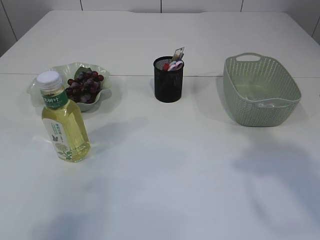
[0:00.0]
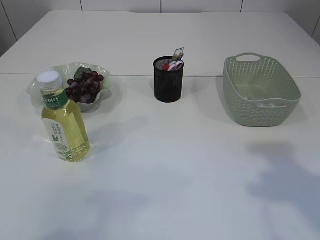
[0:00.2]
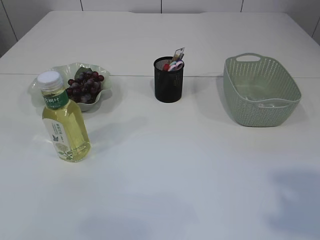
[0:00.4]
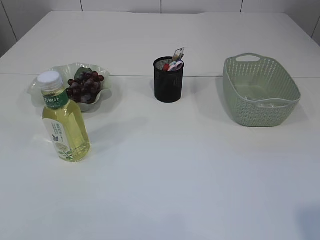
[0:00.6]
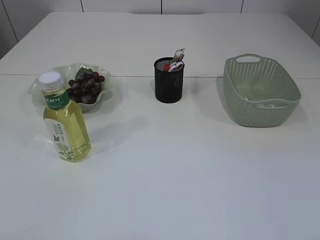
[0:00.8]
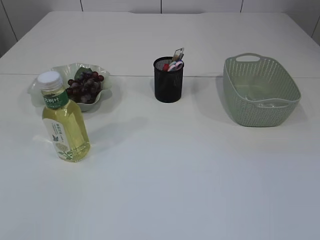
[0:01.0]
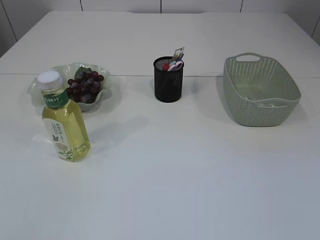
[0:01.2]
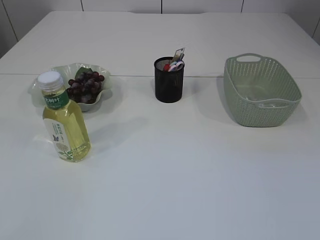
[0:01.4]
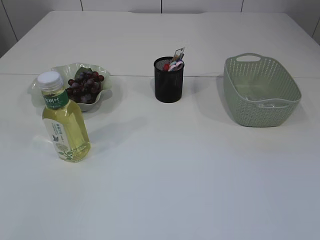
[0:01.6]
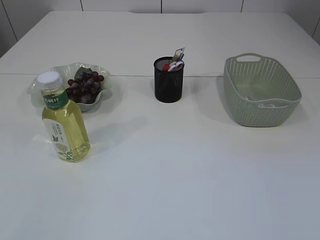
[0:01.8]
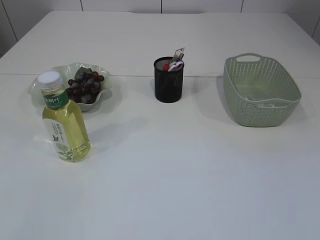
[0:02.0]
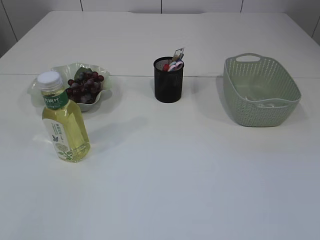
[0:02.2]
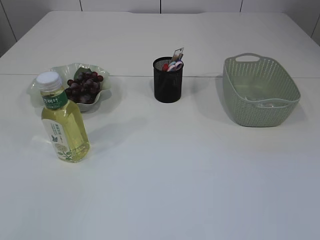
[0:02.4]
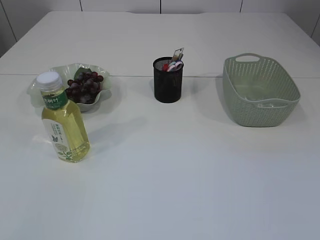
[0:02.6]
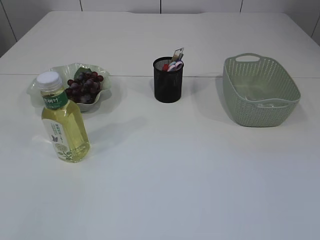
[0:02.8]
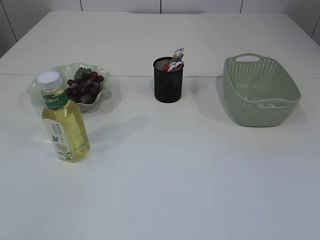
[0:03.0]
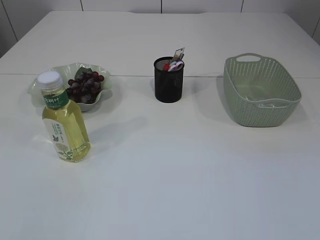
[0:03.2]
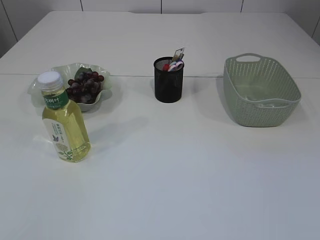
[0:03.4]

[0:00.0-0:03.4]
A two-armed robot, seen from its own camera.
0:00.0 to 0:01.6: The left gripper goes some 15 cm backward.

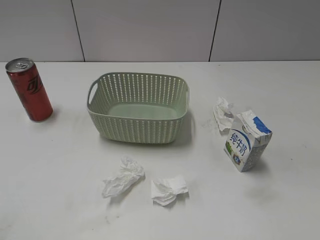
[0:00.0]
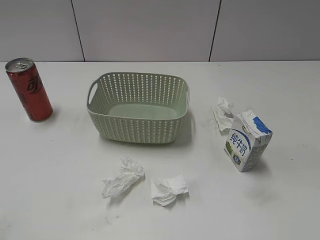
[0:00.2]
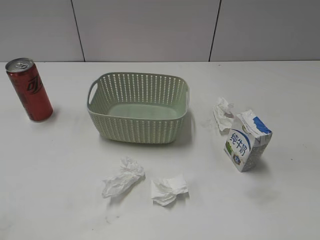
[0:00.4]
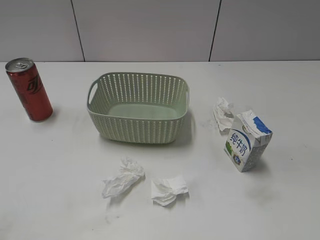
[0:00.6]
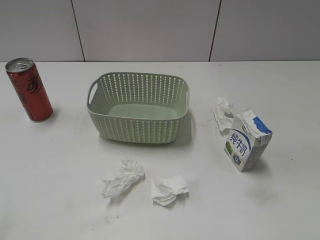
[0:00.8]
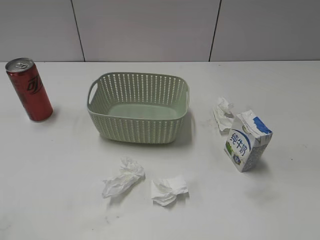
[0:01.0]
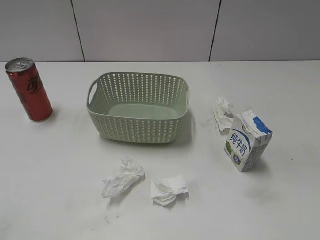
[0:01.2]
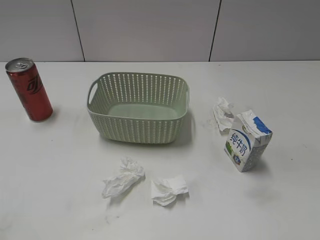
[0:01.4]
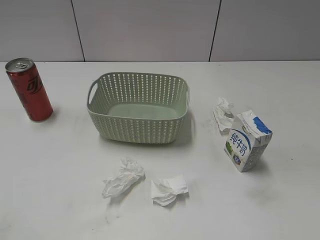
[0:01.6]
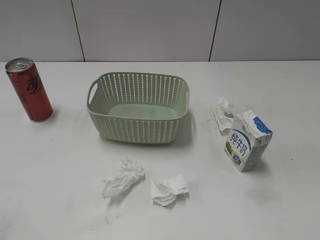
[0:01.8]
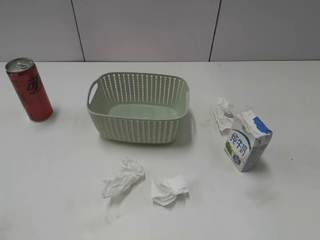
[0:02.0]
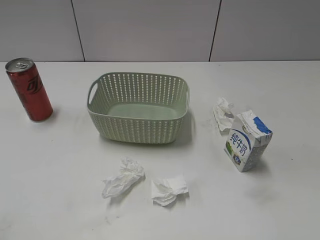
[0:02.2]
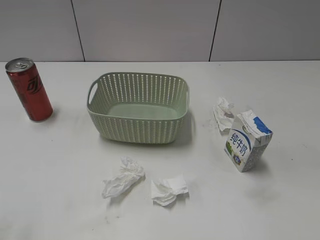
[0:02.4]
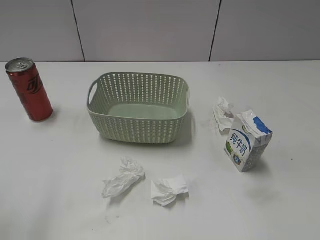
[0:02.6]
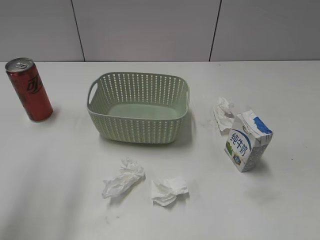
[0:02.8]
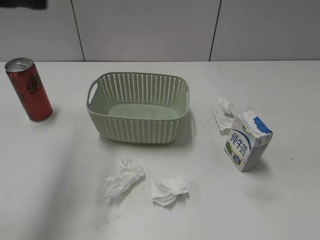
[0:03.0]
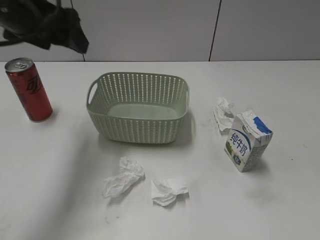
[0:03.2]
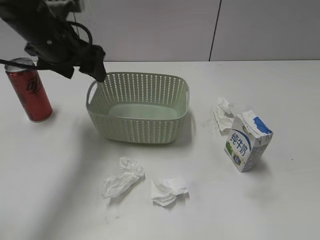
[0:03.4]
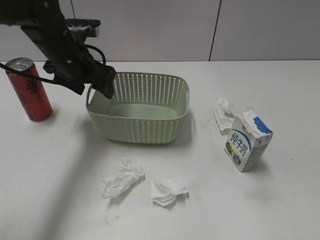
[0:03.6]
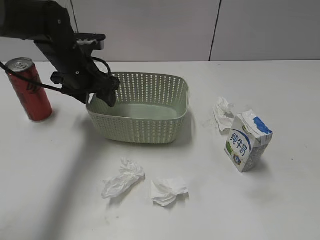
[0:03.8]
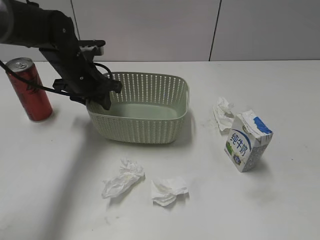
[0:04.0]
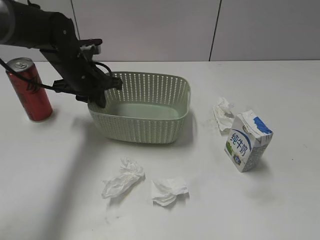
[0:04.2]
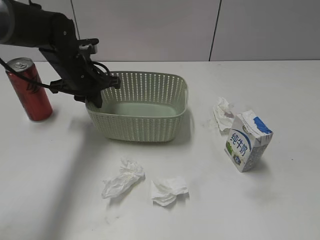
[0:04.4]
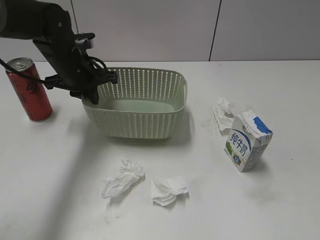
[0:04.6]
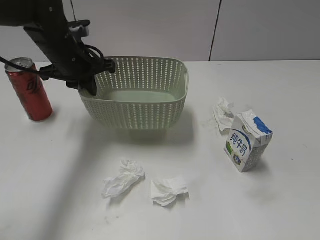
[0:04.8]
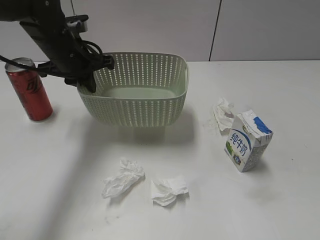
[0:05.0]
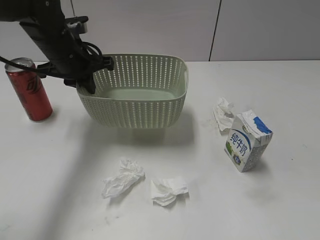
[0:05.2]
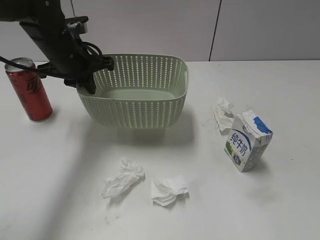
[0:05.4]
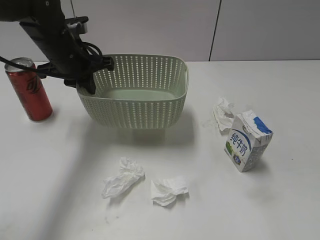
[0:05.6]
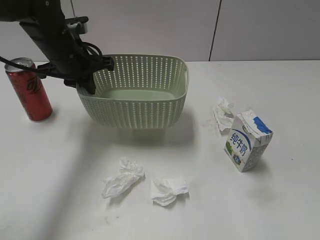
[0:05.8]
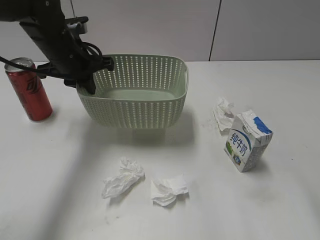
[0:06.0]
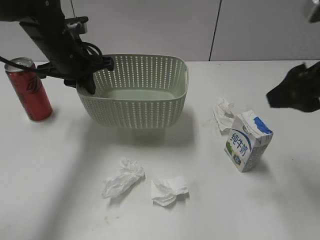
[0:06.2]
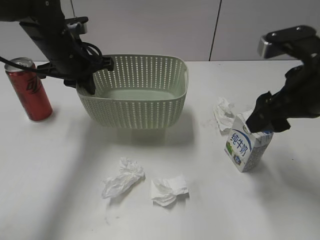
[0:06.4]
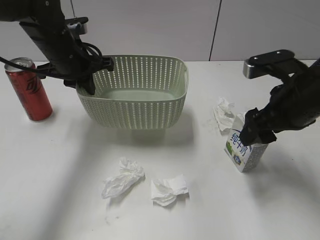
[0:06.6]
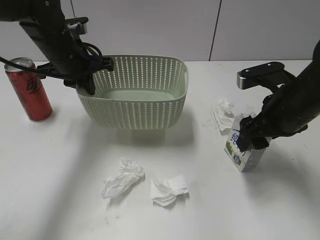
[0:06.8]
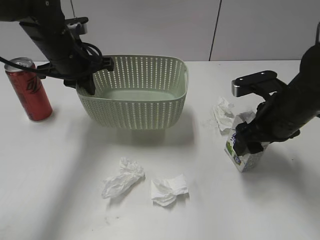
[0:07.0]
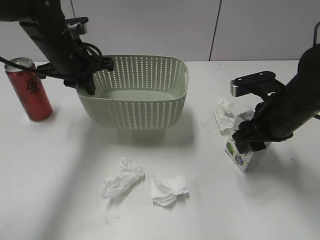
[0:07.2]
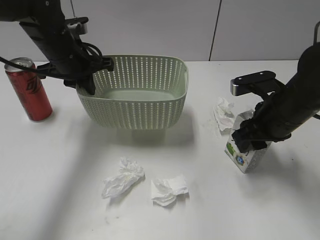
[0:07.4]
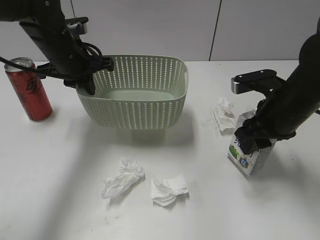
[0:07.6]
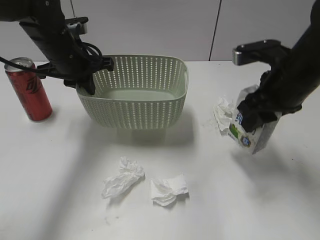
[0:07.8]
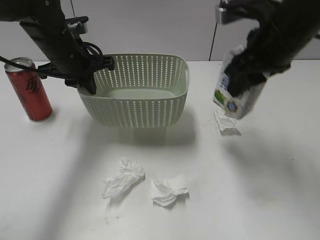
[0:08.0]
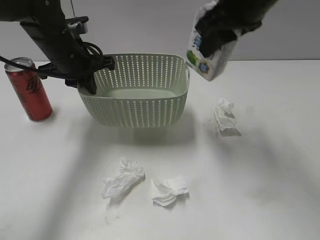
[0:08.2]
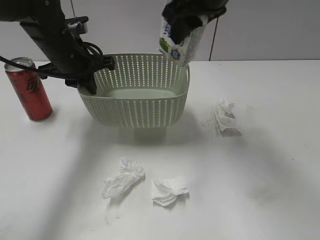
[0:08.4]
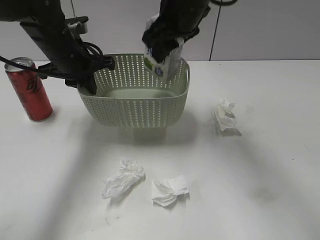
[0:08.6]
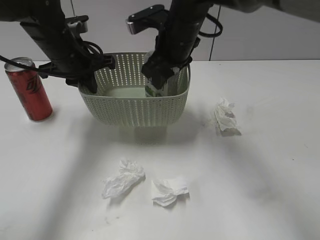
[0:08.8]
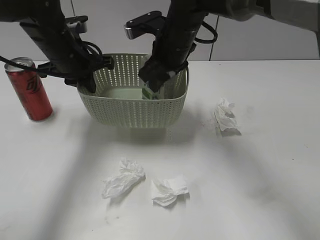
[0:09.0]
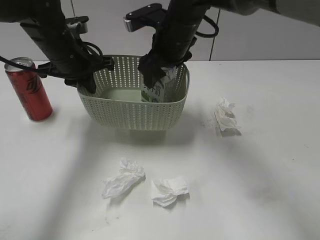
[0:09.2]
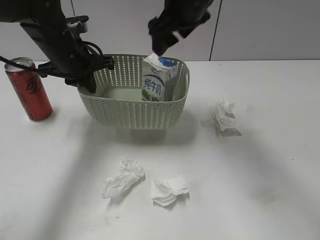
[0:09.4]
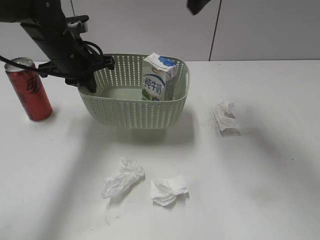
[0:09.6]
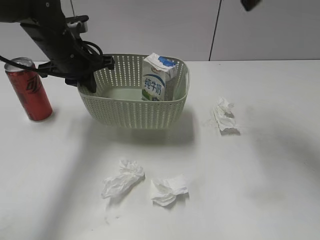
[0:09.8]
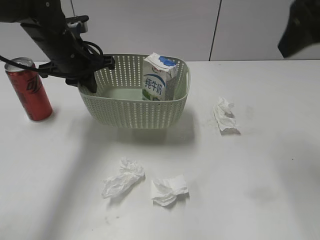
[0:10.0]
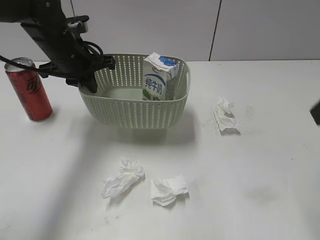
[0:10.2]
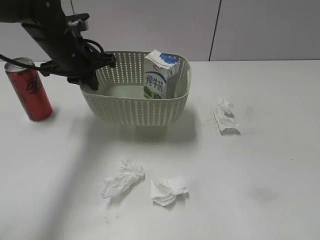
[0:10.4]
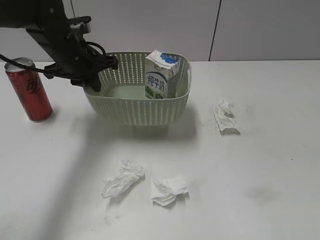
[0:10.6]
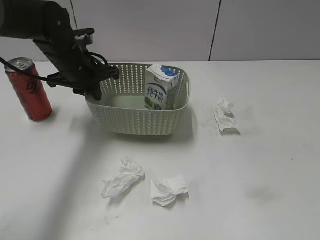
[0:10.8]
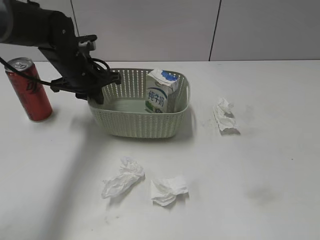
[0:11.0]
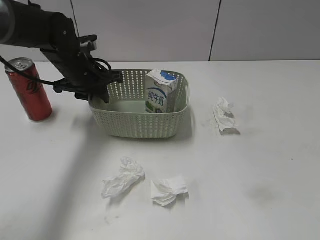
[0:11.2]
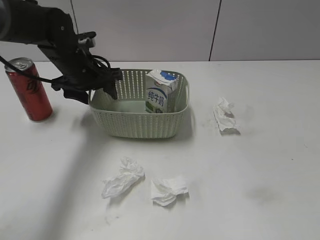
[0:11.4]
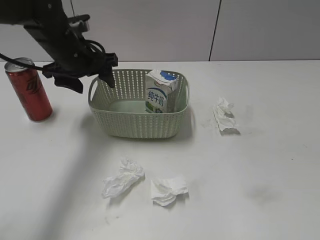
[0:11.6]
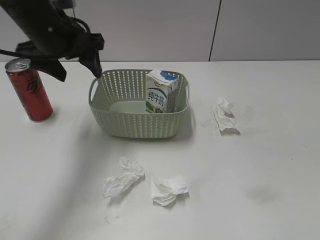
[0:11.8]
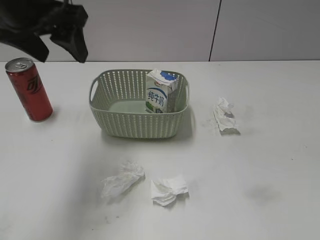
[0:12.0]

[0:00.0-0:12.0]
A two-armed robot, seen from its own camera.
Step, 0:03.0 to 0:04.2: Grasp the basket with left gripper.
Step, 0:04.4 to 0:05.0: Lift the basket with left gripper.
Step, 0:05.2 to 0:07.2: Grasp the milk with right gripper.
Step, 0:07.4 to 0:09.4: Place the milk in the basket with right gripper.
0:01.6 to 0:03.0: The left gripper is displaced forward and upward by approximately 25 cm, and opens up.
0:03.0 to 0:04.4: The left gripper travels downward, forward and to the right by approximately 30 cm, and closes.
0:04.4 to 0:06.0: The left gripper is displaced upward by approximately 5 cm. Meanwhile the right gripper heads forward and upward, covering some 15 cm.
0:06.0 to 0:07.6: The right gripper travels downward, forward and to the left by roughly 25 cm, and closes.
0:07.6 to 0:09.0: The right gripper travels to the left and forward by about 20 cm.
0:09.0 to 0:10.4: The right gripper heads backward, to the right and upward, covering about 35 cm, and opens up.
0:10.4 to 0:12.0: The right gripper goes about 15 cm backward and downward; the left gripper shifts approximately 10 cm upward and backward, and opens up.

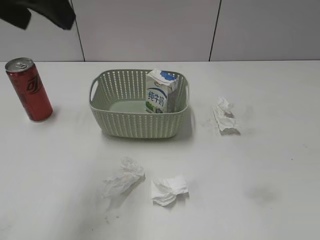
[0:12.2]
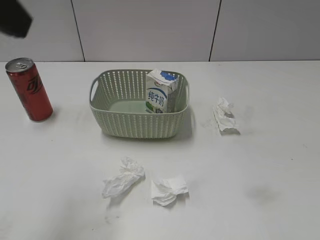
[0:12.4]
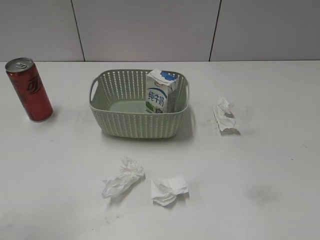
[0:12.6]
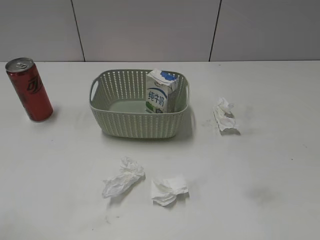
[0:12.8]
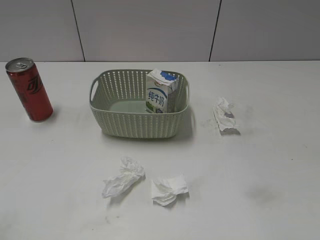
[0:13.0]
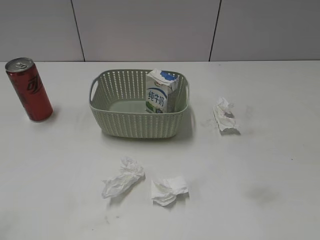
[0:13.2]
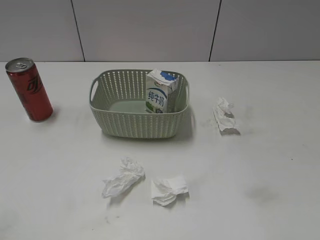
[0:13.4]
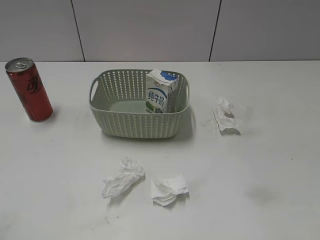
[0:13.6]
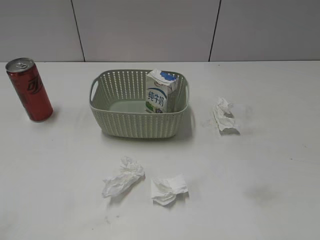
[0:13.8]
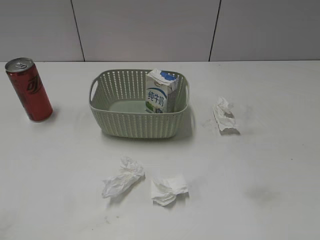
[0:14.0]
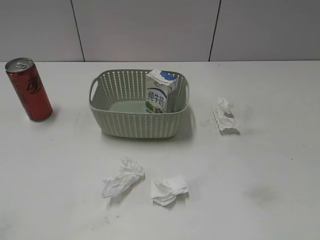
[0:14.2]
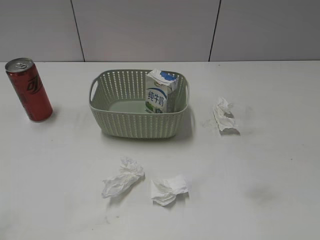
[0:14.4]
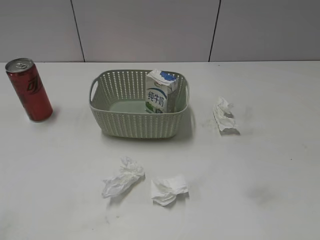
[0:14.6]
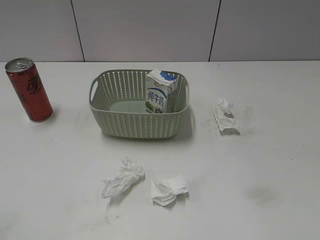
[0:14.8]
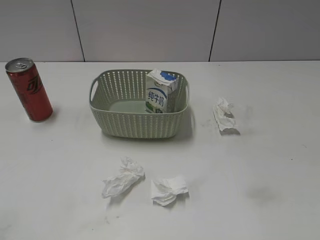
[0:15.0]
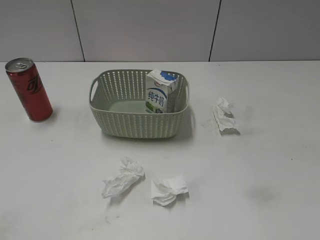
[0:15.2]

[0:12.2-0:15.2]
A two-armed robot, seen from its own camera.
0:12.2 to 0:13.8: The left gripper shifts approximately 25 cm backward and to the left.

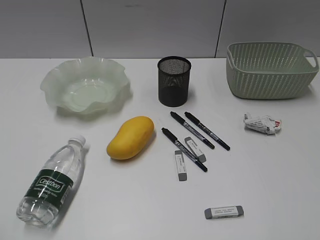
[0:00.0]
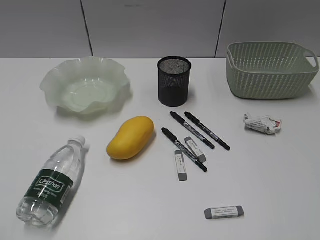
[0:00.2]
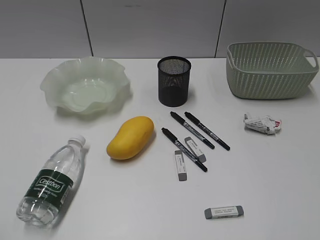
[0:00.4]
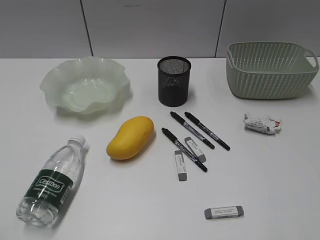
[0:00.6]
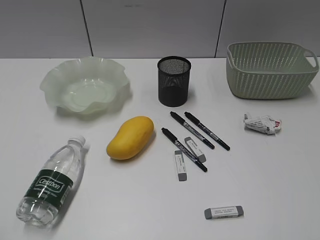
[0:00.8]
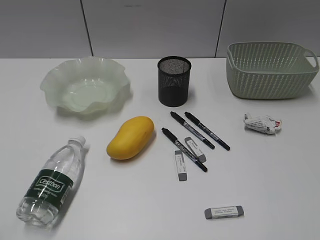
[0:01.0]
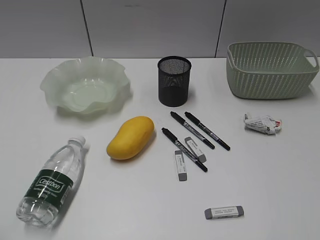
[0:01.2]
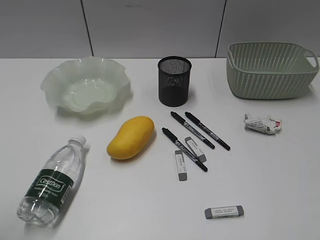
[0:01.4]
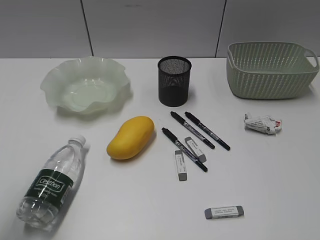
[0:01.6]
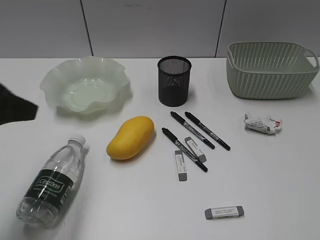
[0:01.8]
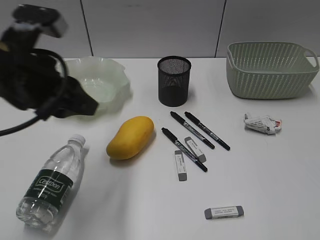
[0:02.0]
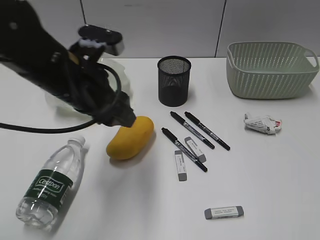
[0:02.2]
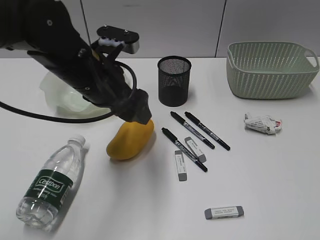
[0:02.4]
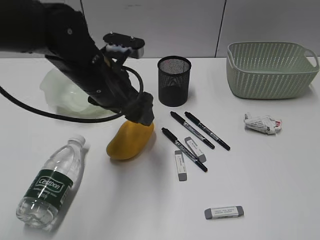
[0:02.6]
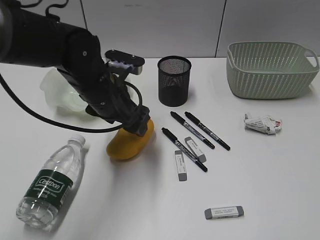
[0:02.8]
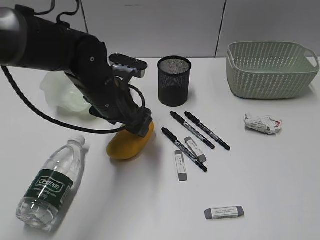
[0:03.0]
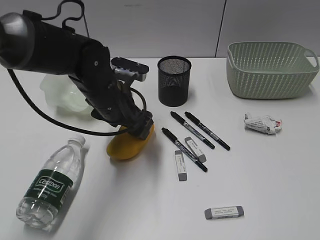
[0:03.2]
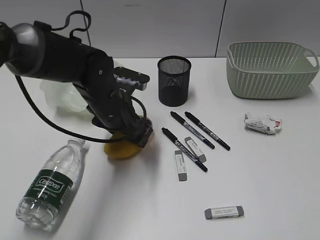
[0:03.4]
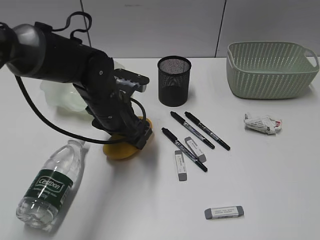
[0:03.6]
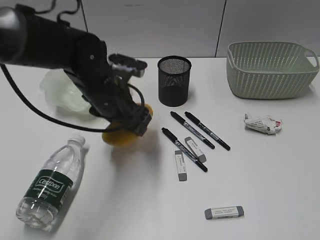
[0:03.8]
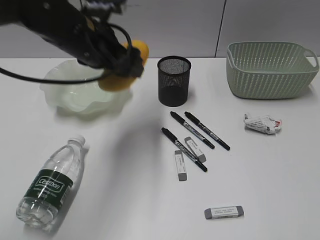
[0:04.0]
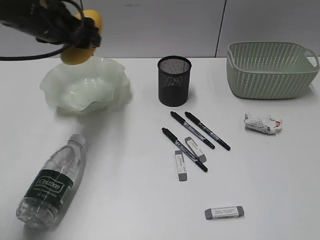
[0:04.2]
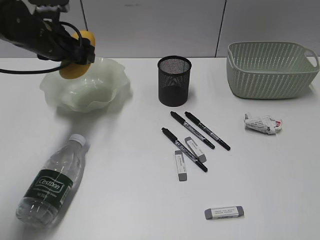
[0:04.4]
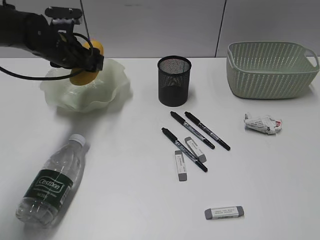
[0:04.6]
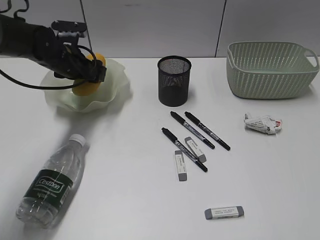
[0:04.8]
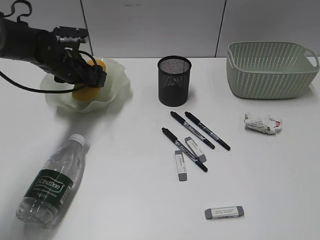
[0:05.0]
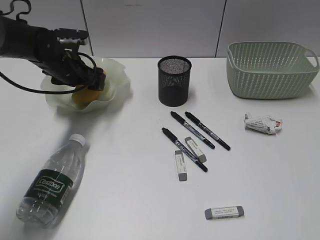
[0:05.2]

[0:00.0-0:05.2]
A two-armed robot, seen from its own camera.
Step, 0:01.2 to 0:03.4: Grasp the mango with left gripper.
0:01.8 to 0:03.4: The left gripper is displaced to the right, downward and forward by some 25 cm, and opens up.
0:03.4 to 0:05.2: The left gripper heads forward and to the left, covering approximately 15 cm.
